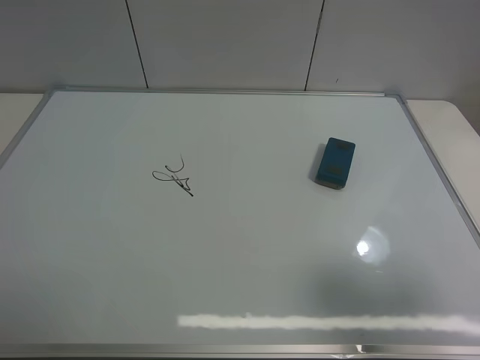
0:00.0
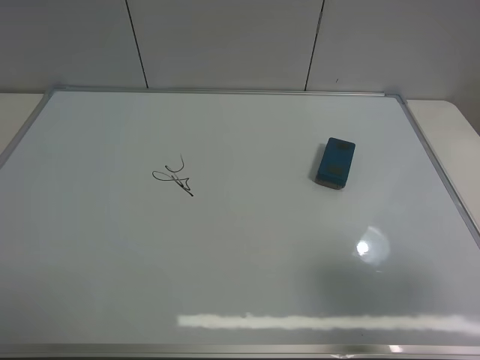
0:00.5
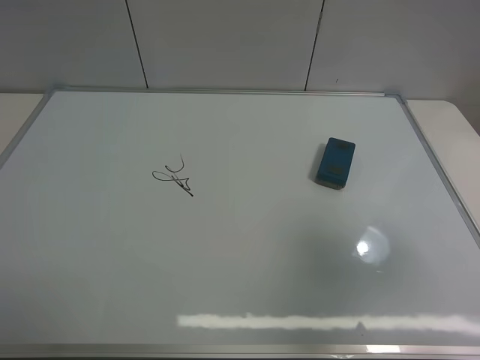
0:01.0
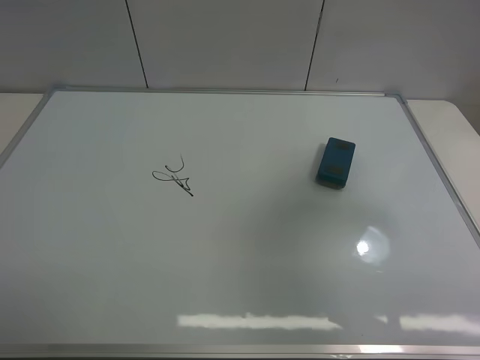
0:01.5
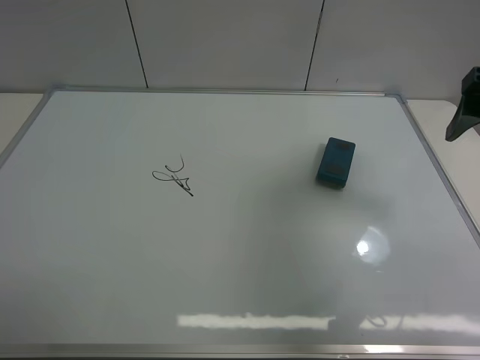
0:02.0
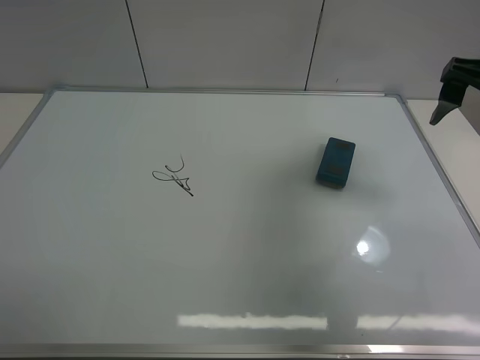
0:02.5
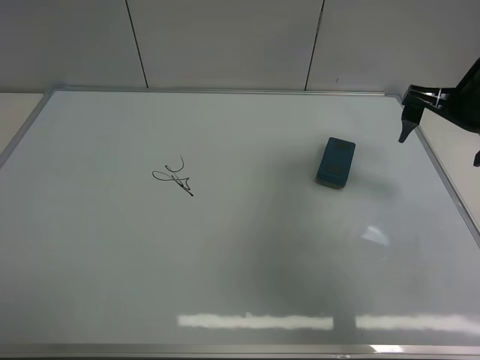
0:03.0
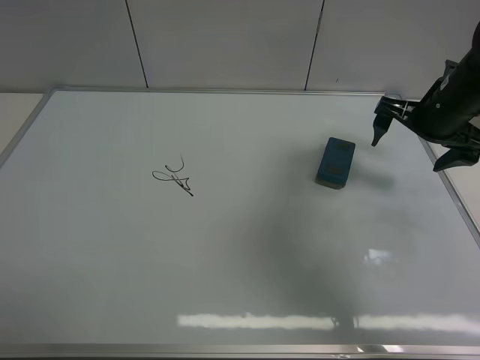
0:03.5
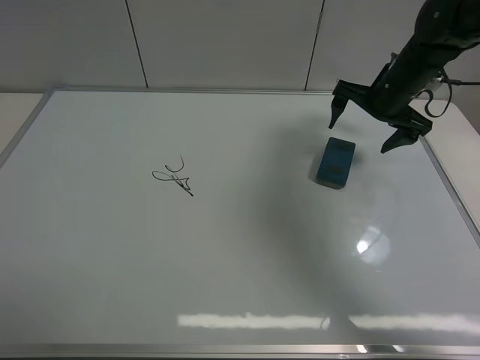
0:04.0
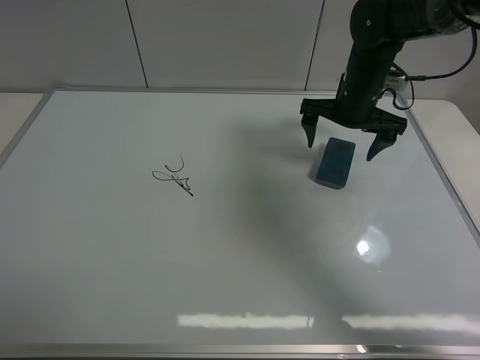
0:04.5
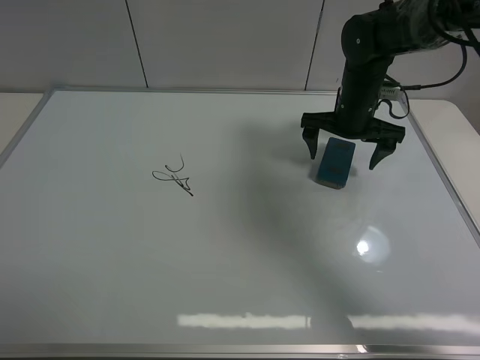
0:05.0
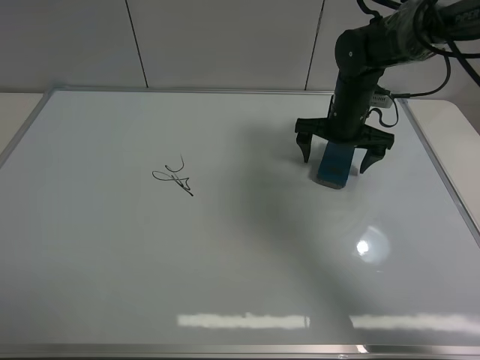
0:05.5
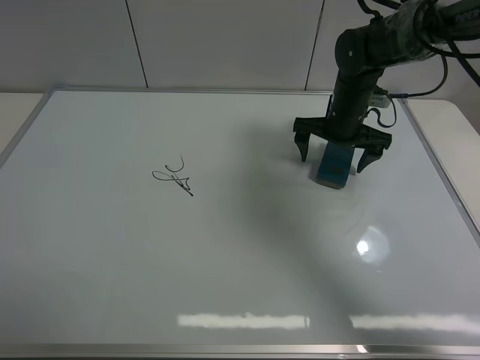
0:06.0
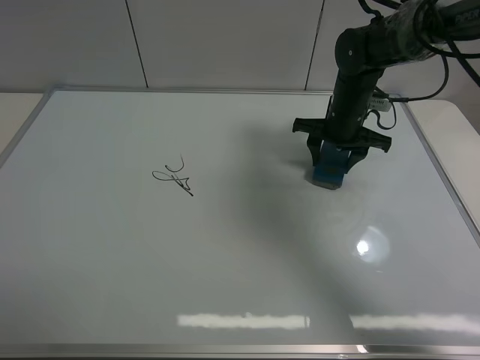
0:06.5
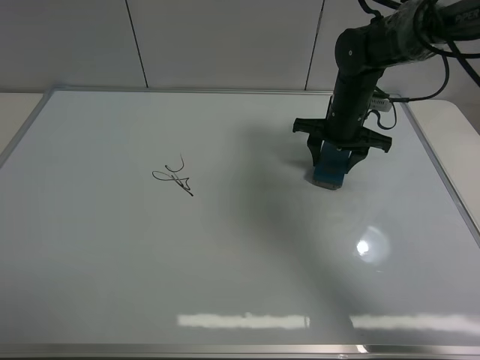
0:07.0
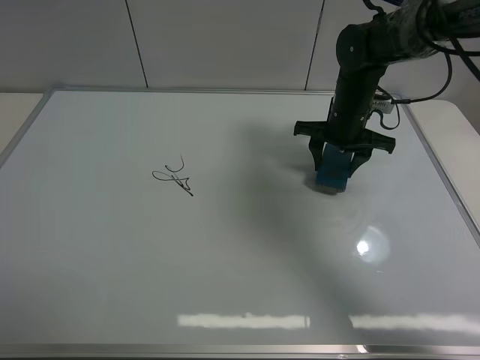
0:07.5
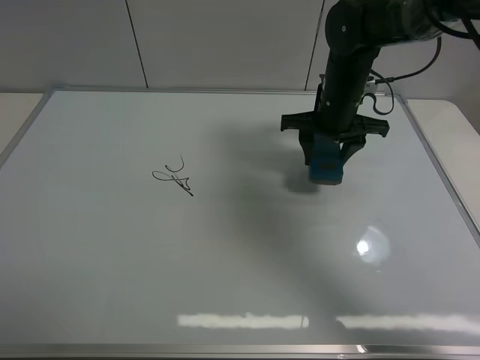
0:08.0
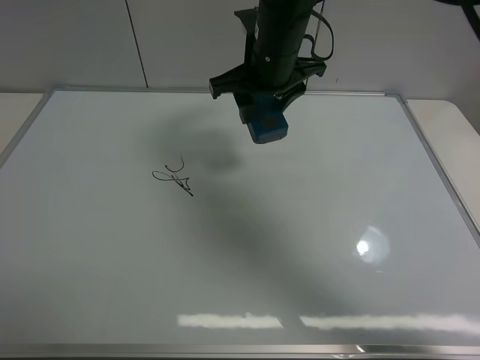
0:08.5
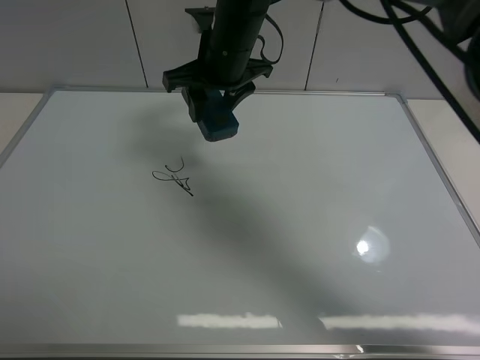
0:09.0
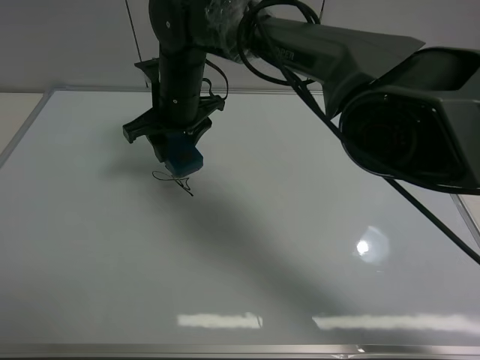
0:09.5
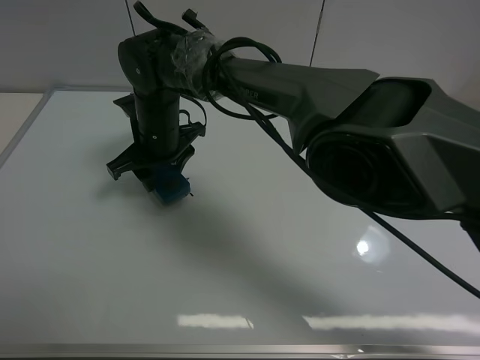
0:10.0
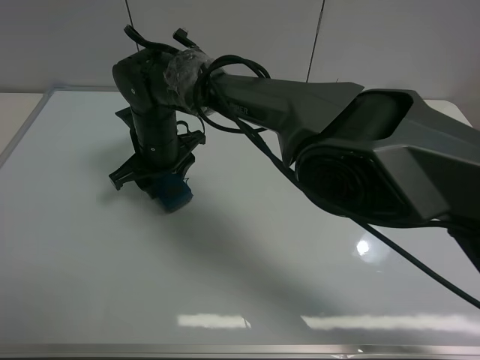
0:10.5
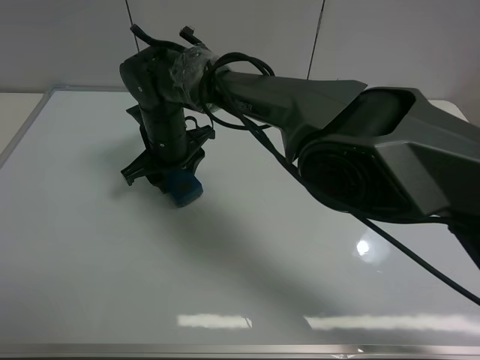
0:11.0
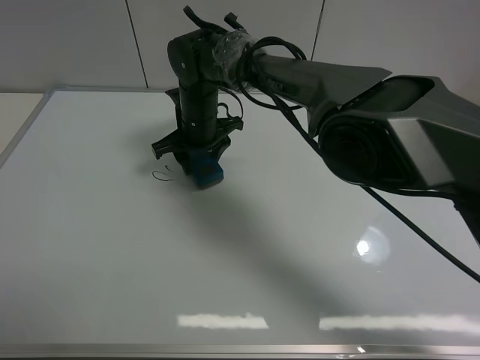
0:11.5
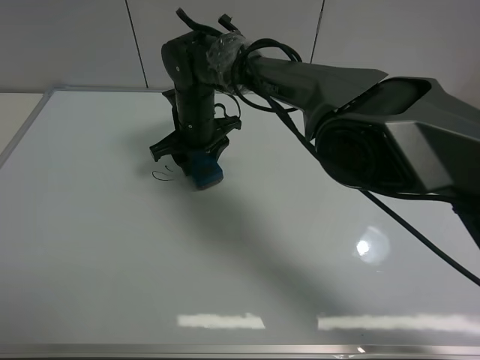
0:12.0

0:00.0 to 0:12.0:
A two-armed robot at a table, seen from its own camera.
Task of the whole recording: use the right gripper to pick up the board eraser, wipe the notes on the whiteboard clean, and then put them back in place.
Step, 0:00.0 to 0:07.5: Pick up the board eraser with right gripper.
0:00.0 to 0:02.0: The right gripper shifts approximately 20 cm forward.
0:02.0 to 0:04.0: The right gripper heads forward and downward, covering roughly 20 cm.
0:04.0 to 0:06.0: The right gripper heads to the left, covering some 5 cm.
0:06.0 to 0:08.0: The right gripper moves roughly 5 cm, and closes.
0:08.0 to 0:10.0: The right gripper shifts about 25 cm to the left.
0:10.0 to 0:12.0: The right gripper moves about 5 cm.

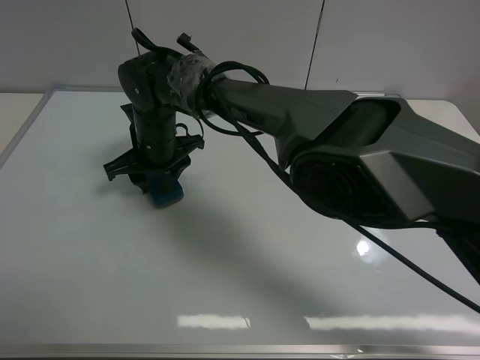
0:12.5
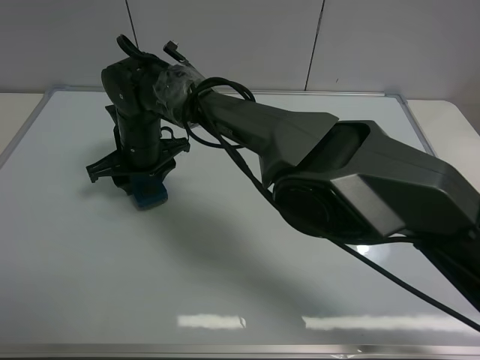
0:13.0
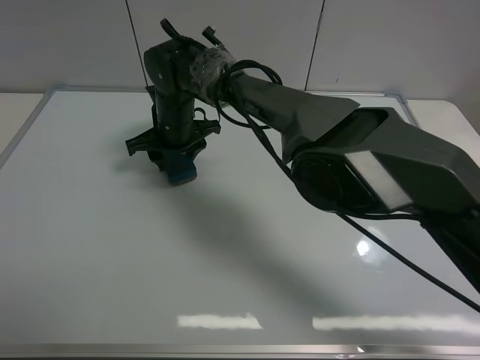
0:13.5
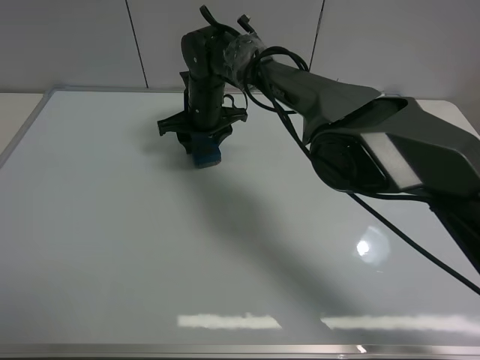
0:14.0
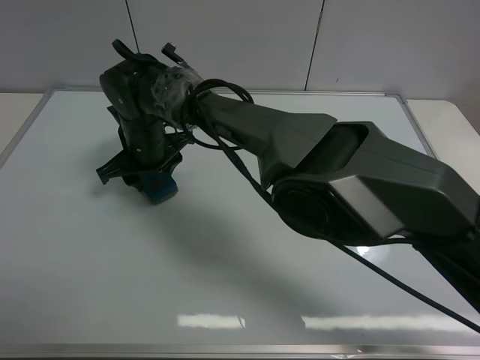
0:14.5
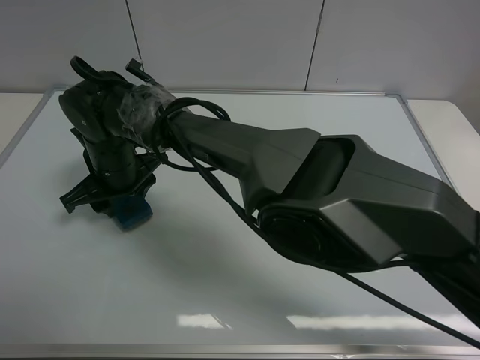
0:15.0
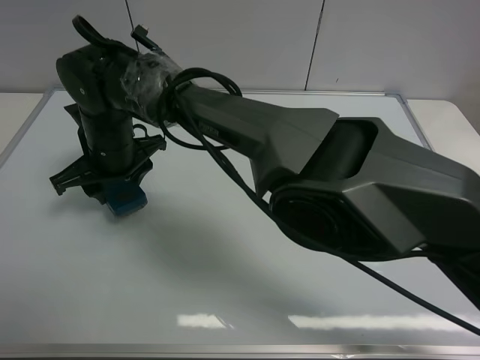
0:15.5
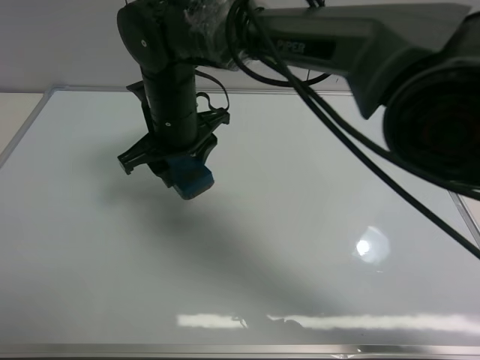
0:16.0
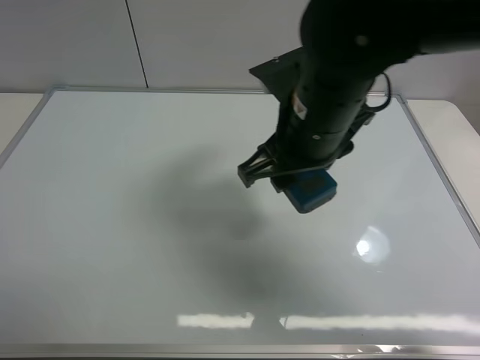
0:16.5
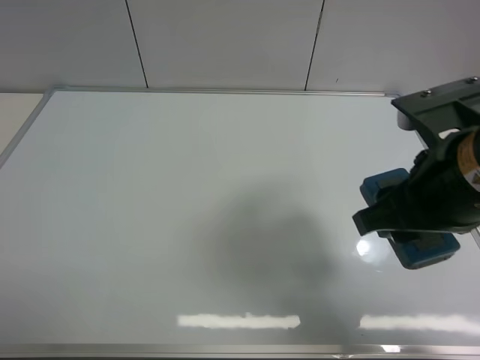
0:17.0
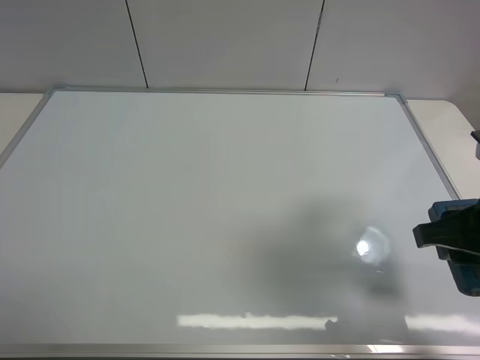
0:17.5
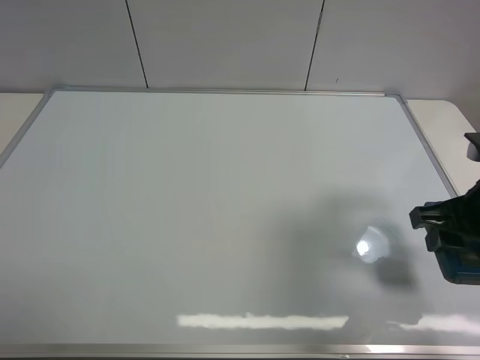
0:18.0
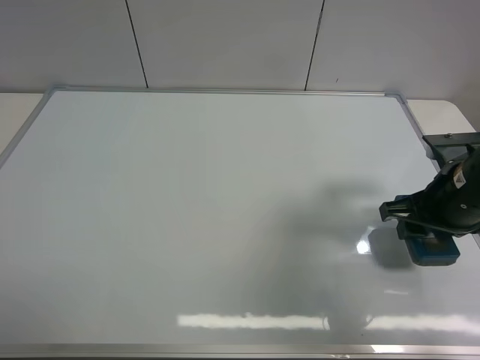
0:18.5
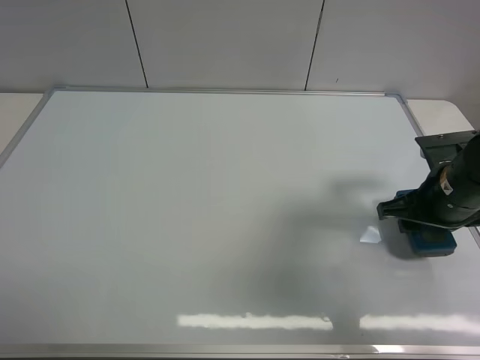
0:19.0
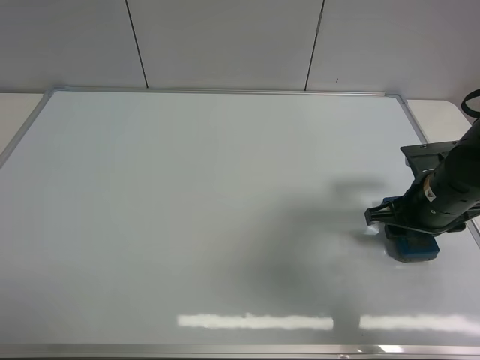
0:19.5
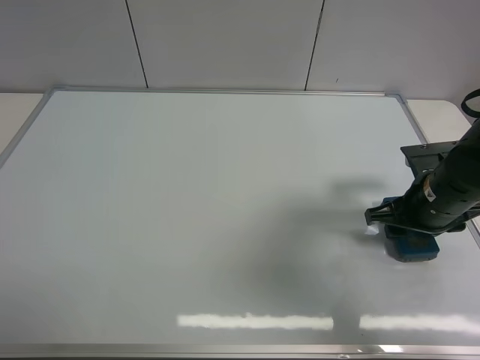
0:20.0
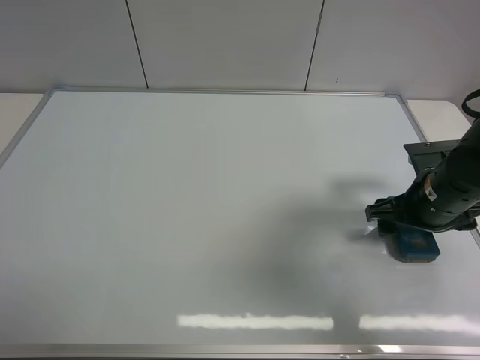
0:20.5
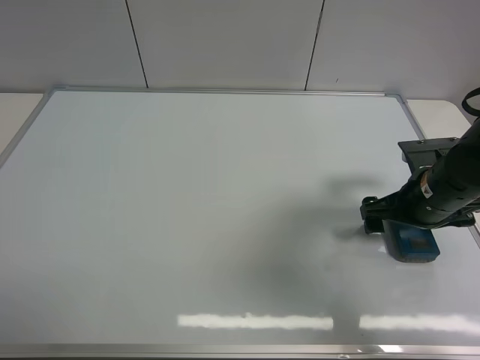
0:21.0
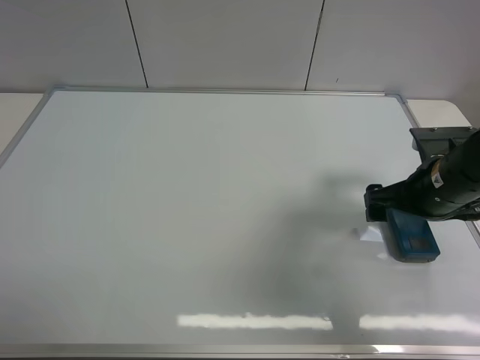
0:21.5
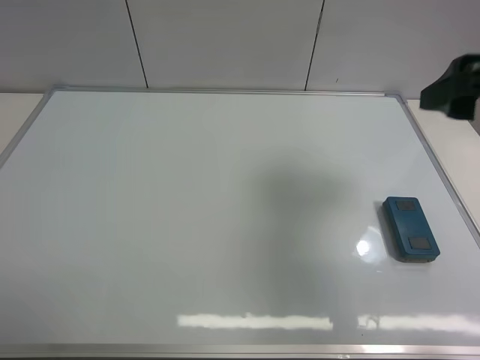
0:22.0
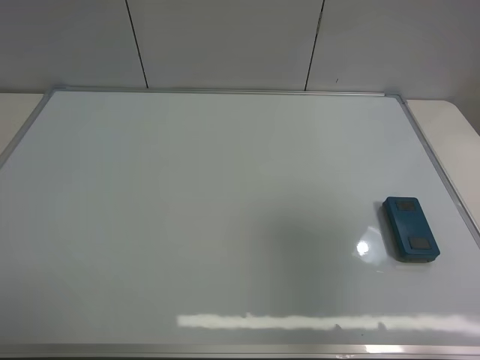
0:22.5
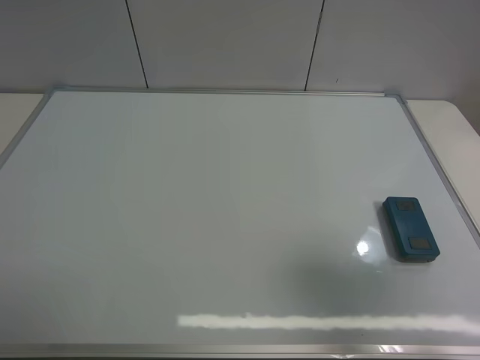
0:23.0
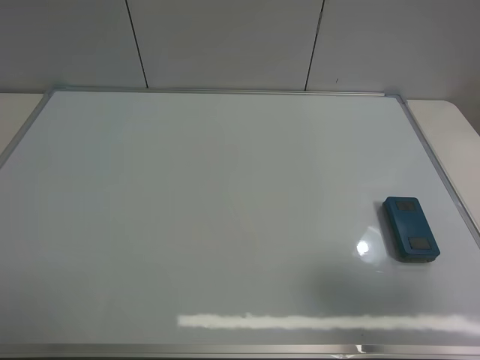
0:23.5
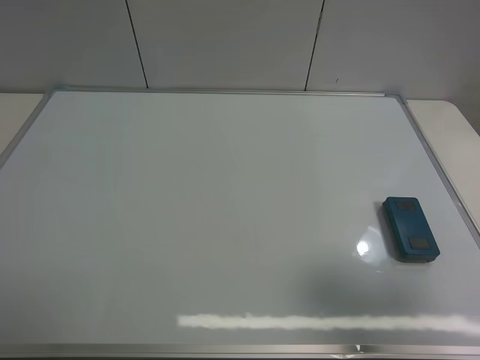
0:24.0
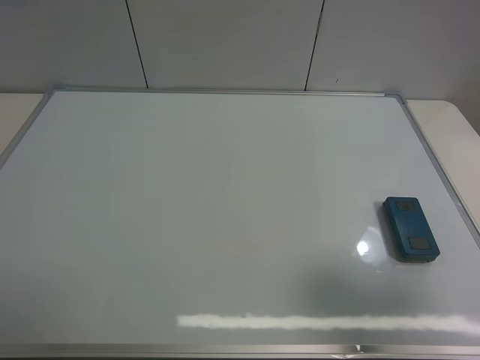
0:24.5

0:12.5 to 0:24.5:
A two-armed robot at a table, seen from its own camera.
Task of the whole recording: use the right gripper to pick up the board eraser, wipe the notes on the whiteboard clean, and then put them back in place.
Step, 0:12.5 to 0:14.5: Wipe off the writing on the board with right gripper.
Step, 0:15.0 to 0:21.5: Place the board eraser on the right side of board with right gripper.
0:12.5 to 0:14.5: The right gripper travels forward and back again, approximately 10 cm each way.
0:14.5 to 0:16.5: The right gripper shifts approximately 30 cm to the right, upward and backward.
0:16.5 to 0:18.5: The right gripper heads to the right and downward, covering approximately 20 cm.
0:18.5 to 0:20.5: The right gripper opens up.
0:20.5 to 0:22.5: The right gripper shifts roughly 30 cm upward and backward.
0:22.5 to 0:24.5: The right gripper goes about 10 cm downward and backward.
